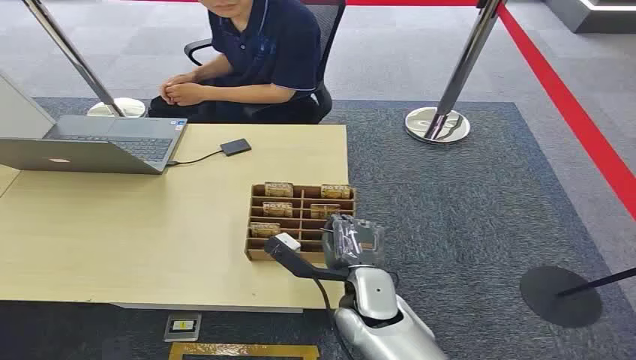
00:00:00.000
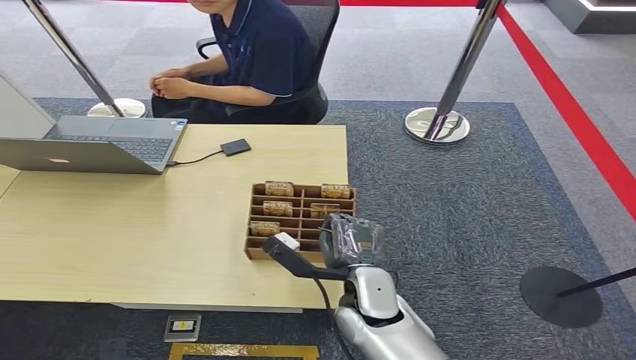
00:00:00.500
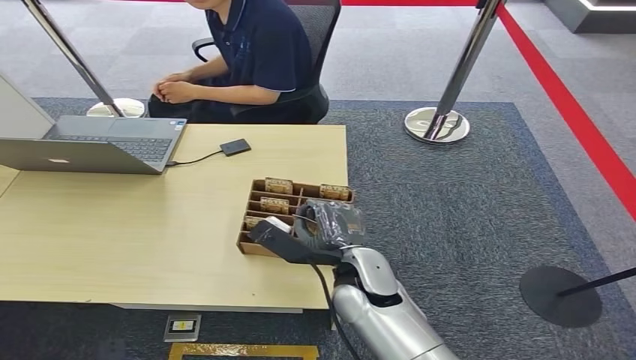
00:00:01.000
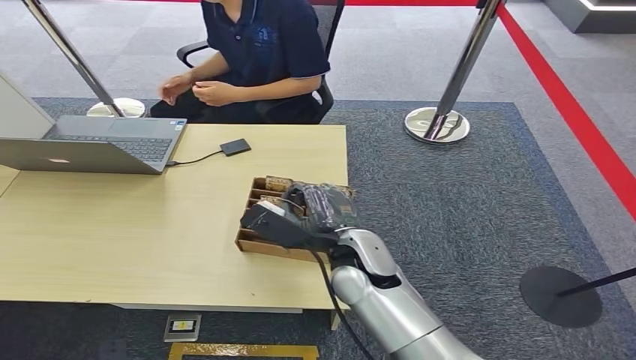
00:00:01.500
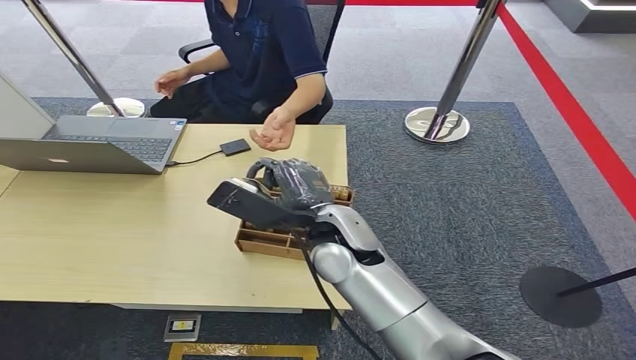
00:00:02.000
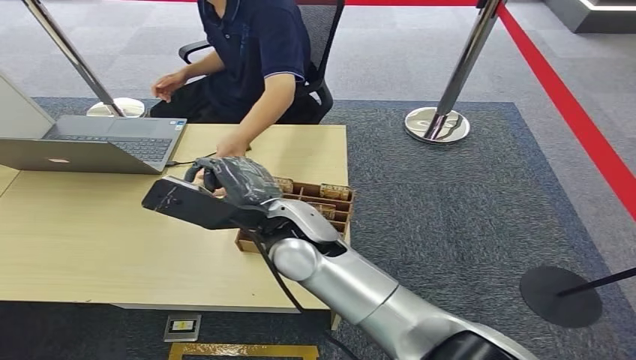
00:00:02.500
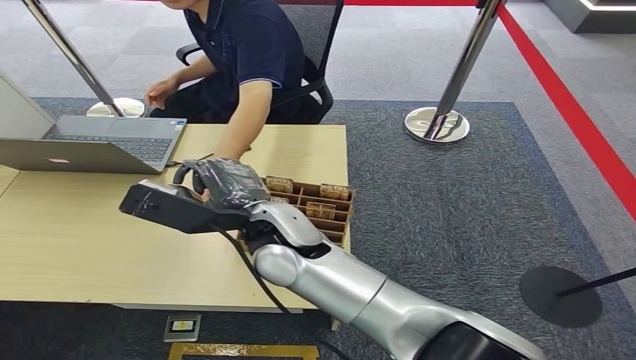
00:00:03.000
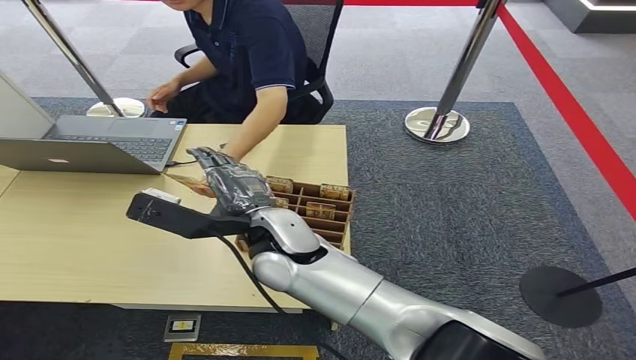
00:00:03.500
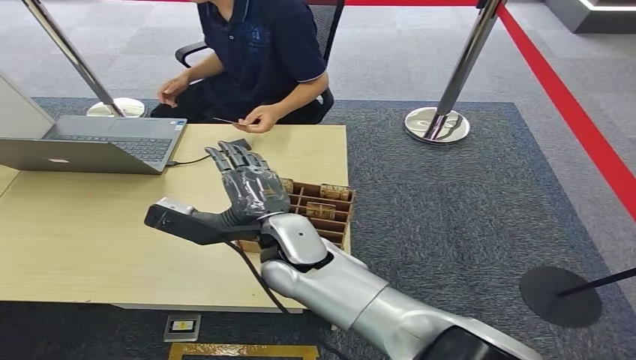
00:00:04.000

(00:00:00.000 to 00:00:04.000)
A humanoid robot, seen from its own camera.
Step, 00:00:00.000 - 00:00:01.500: Pick up the key card from the card box.
Step, 00:00:02.000 - 00:00:04.000: Hand the key card to the target.
00:00:02.000 - 00:00:04.000: The right hand changes place by some 5 cm.

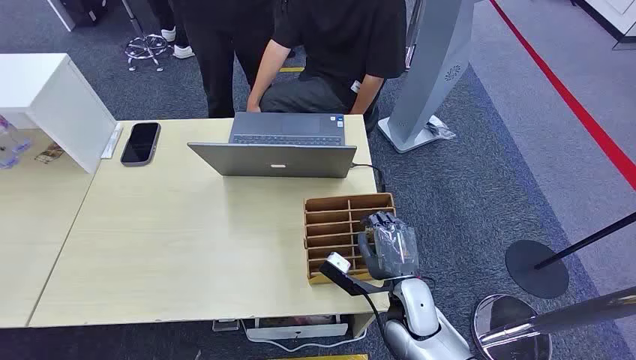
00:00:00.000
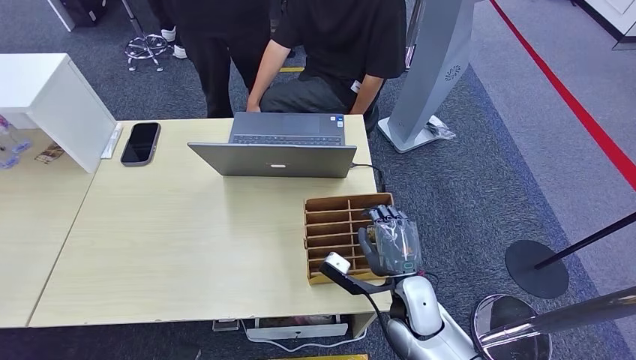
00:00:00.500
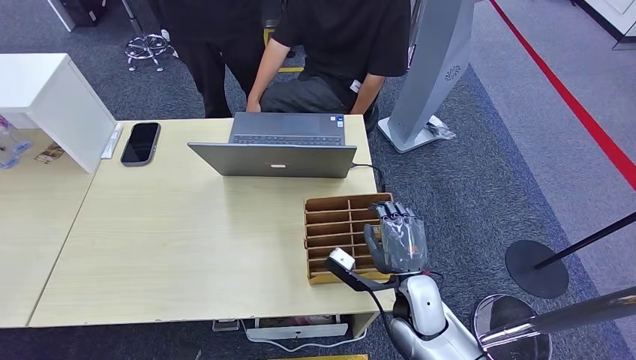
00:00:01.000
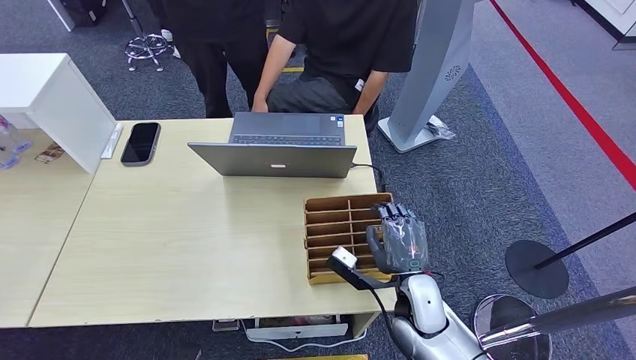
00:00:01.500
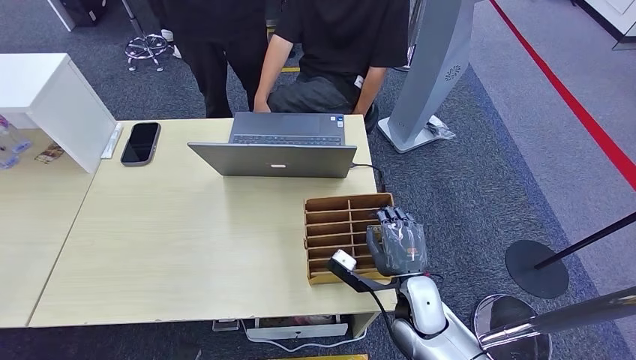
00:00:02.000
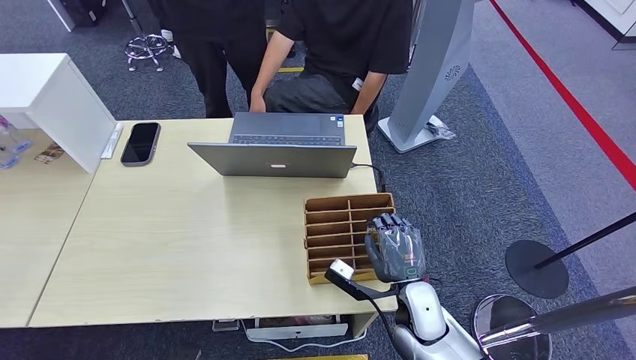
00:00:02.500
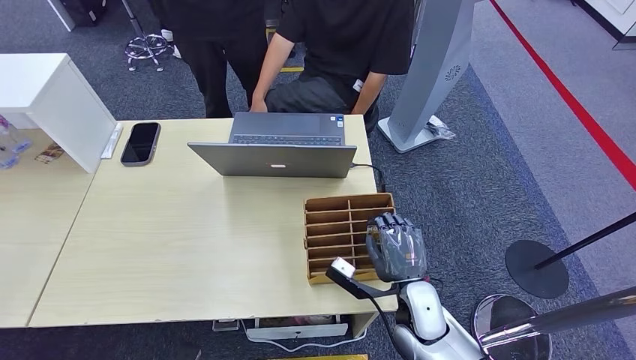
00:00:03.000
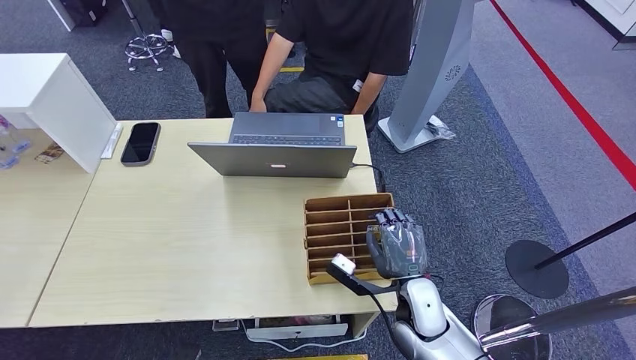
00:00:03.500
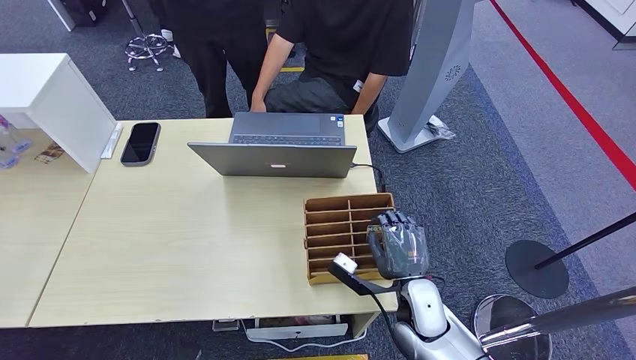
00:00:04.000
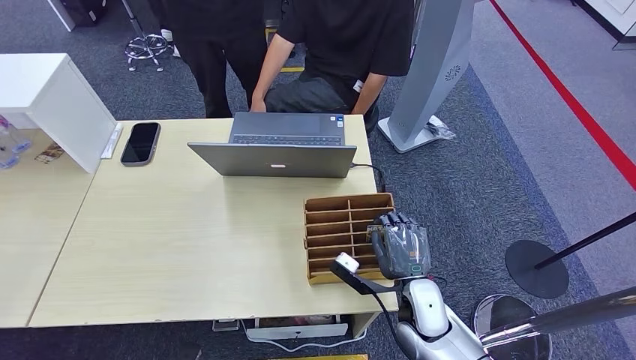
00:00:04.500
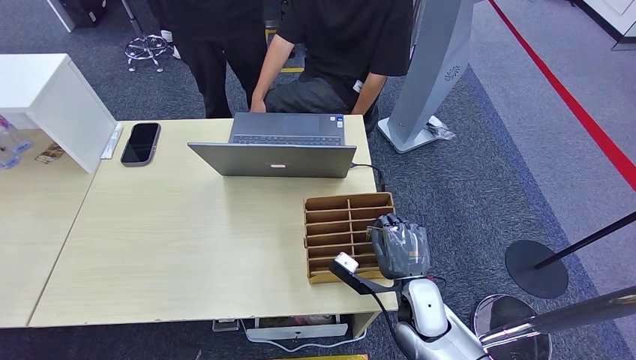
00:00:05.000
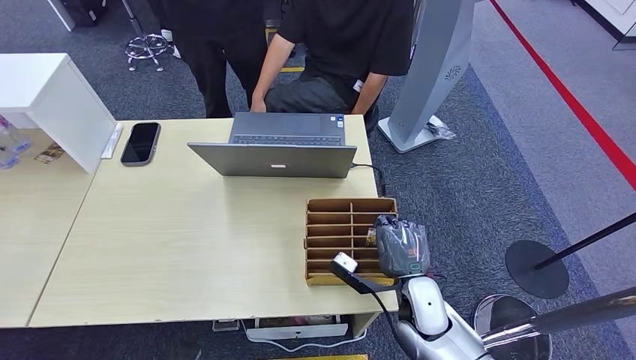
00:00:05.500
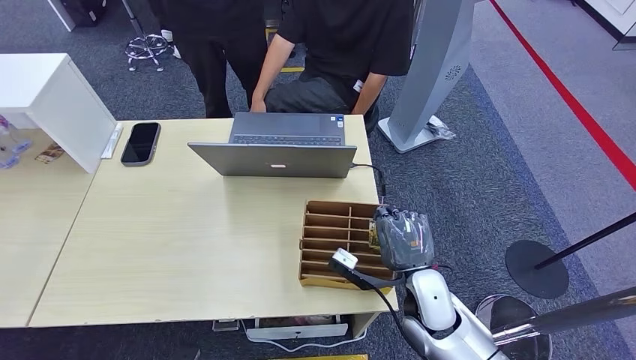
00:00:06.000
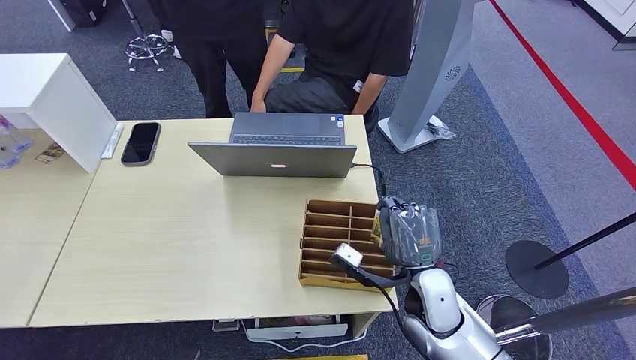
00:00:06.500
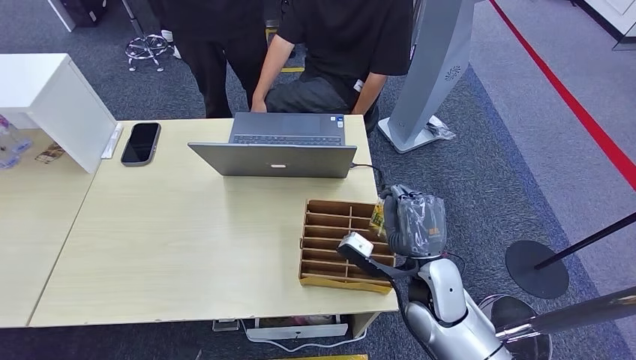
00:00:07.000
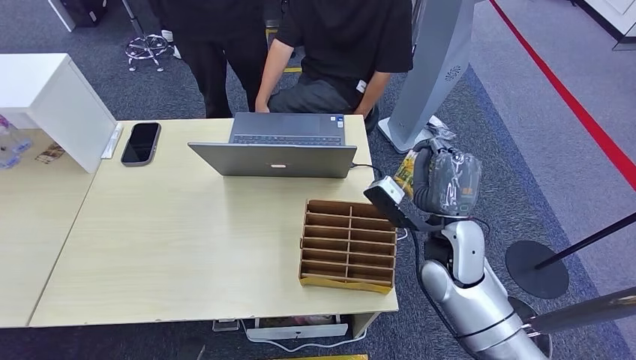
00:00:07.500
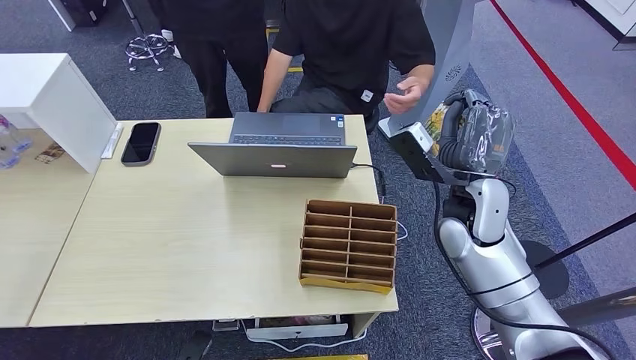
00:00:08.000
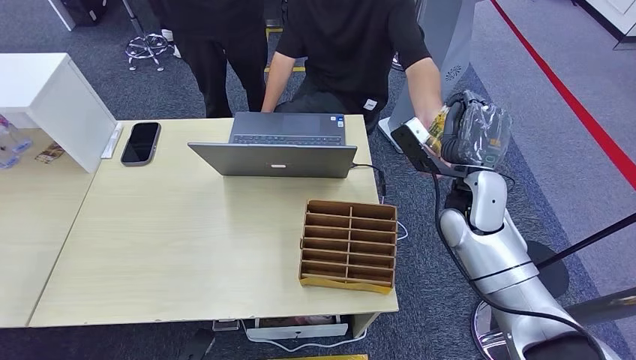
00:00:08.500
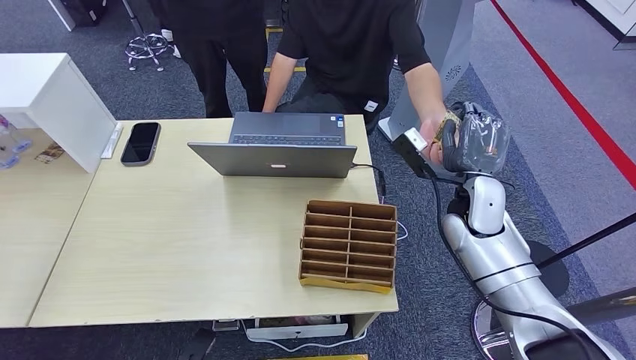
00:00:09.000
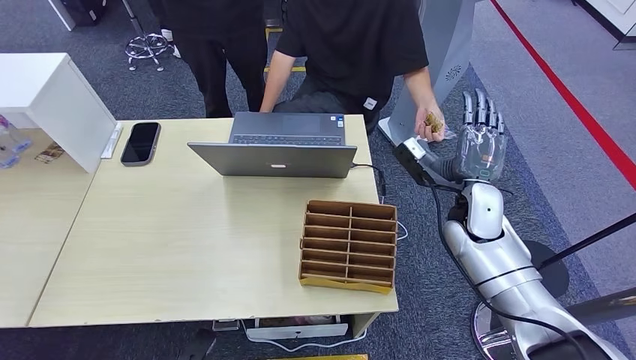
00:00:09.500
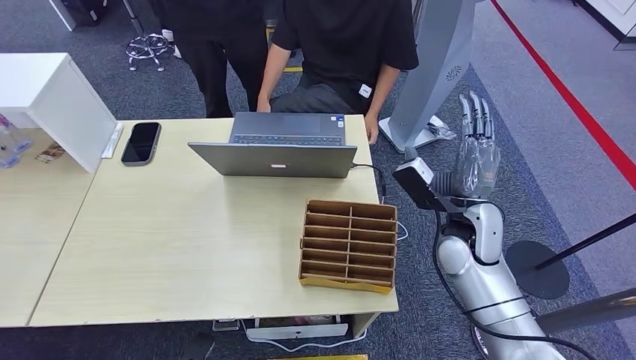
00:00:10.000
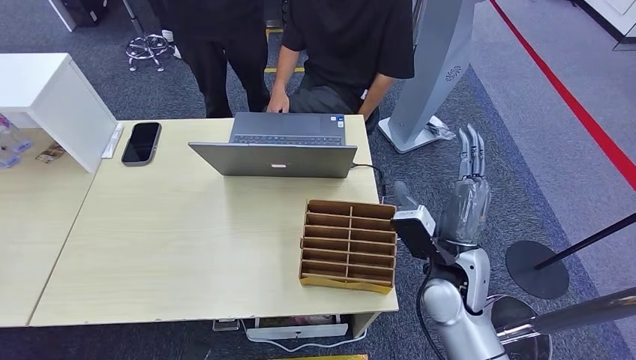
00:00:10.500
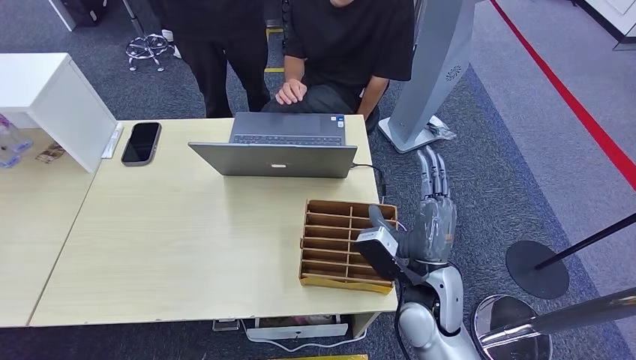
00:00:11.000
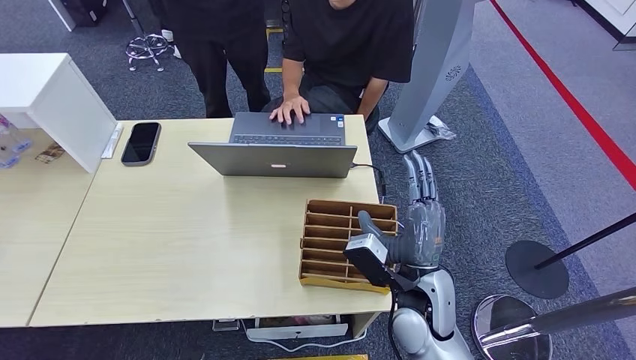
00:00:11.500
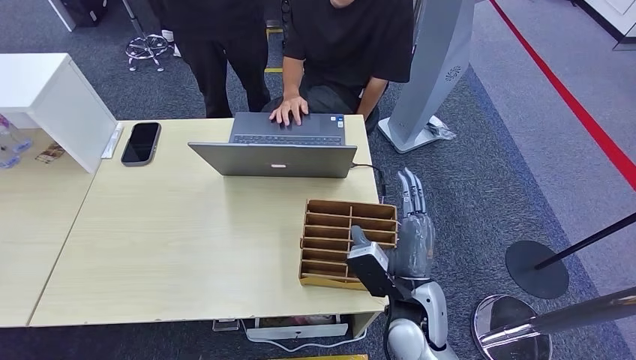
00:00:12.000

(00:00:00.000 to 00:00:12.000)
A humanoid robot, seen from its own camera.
Step, 00:00:00.000 - 00:00:06.500: Pick up the key card from the card box.
Step, 00:00:07.000 - 00:00:12.000: Hand the key card to the target.
00:00:02.000 - 00:00:04.000: Neither hand changes place.
00:00:04.000 - 00:00:06.000: The hands stay close to where they were, moving slightly.
00:00:06.000 - 00:00:08.000: The right hand goes some 20 cm upward, forward and to the right.
00:00:08.000 - 00:00:10.000: The right hand travels downward by some 5 cm.
00:00:10.000 - 00:00:12.000: The right hand moves backward, to the left and downward, approximately 15 cm.
